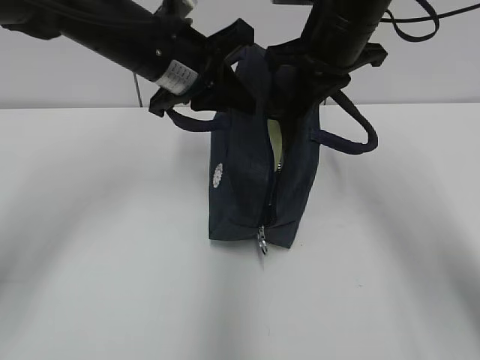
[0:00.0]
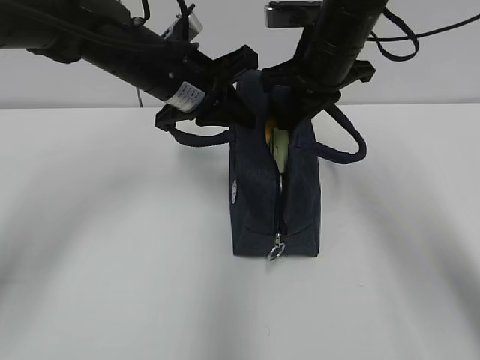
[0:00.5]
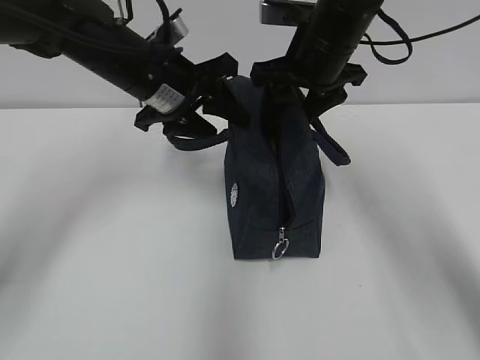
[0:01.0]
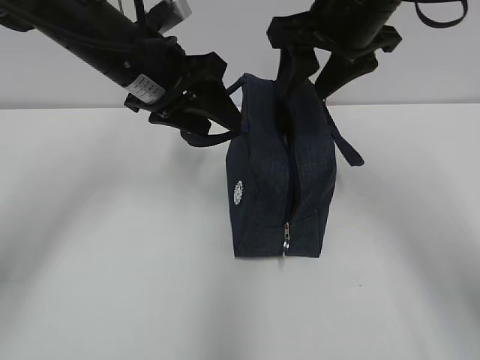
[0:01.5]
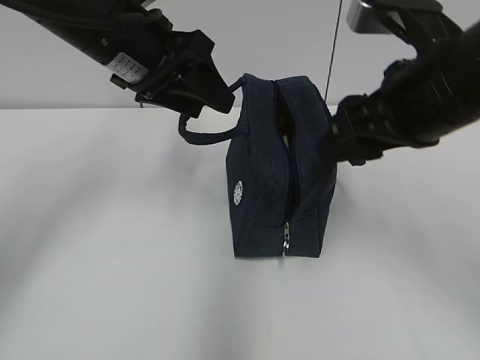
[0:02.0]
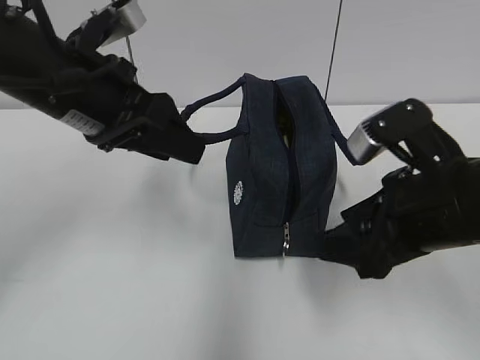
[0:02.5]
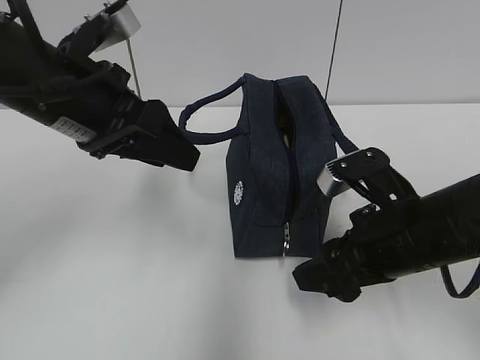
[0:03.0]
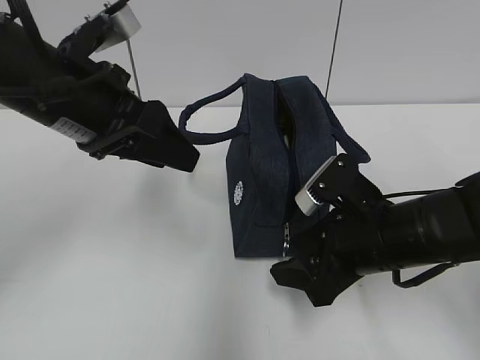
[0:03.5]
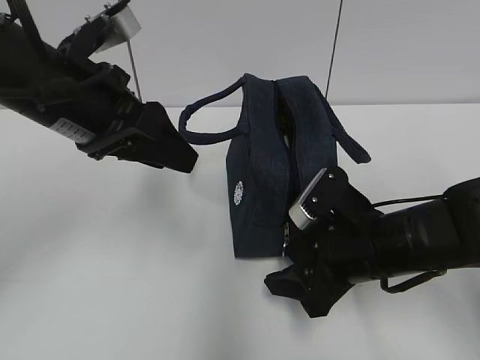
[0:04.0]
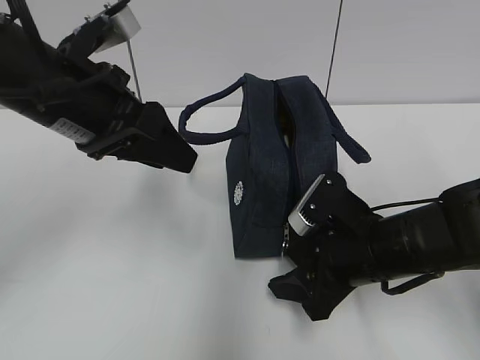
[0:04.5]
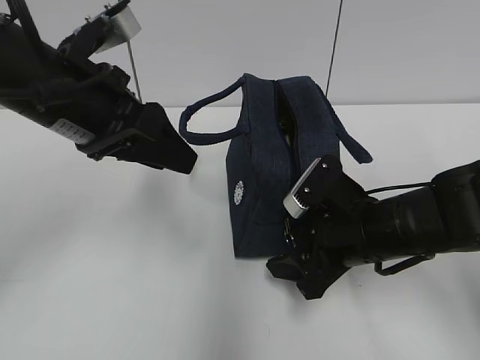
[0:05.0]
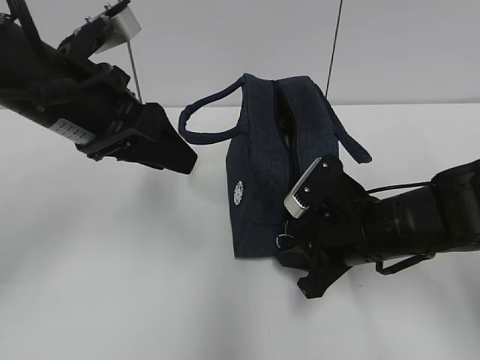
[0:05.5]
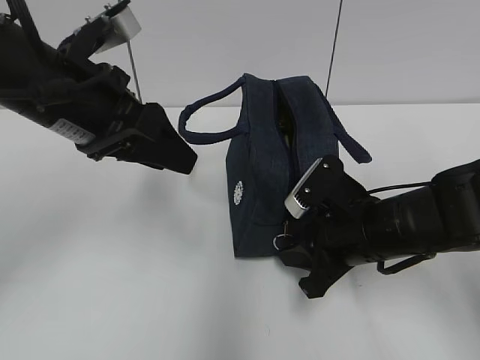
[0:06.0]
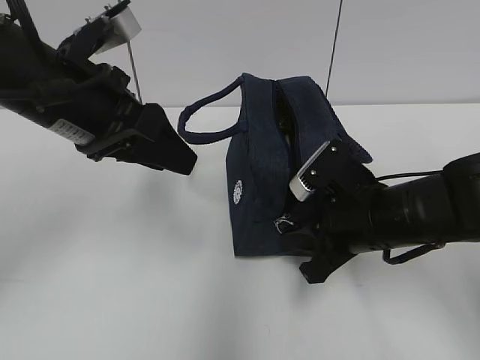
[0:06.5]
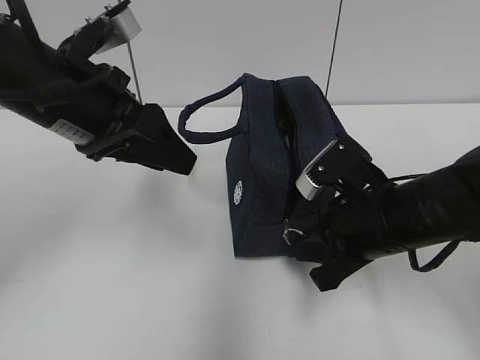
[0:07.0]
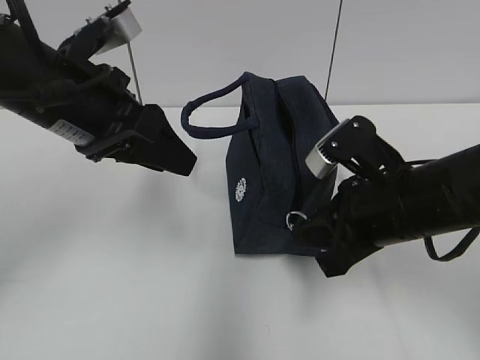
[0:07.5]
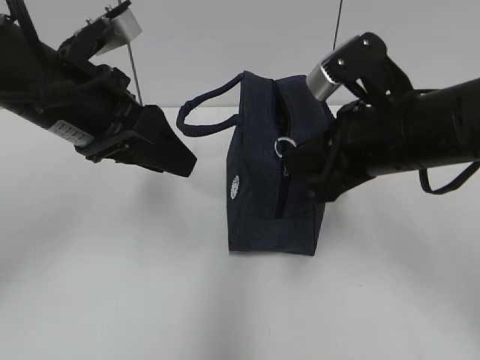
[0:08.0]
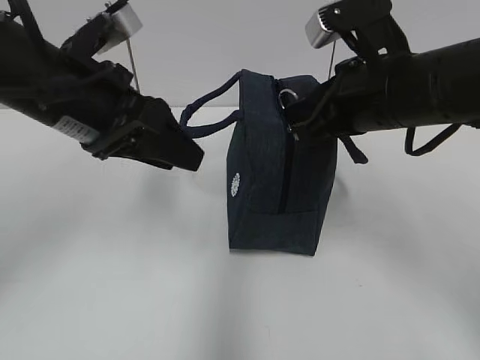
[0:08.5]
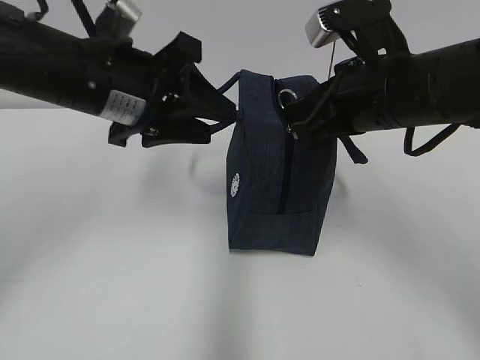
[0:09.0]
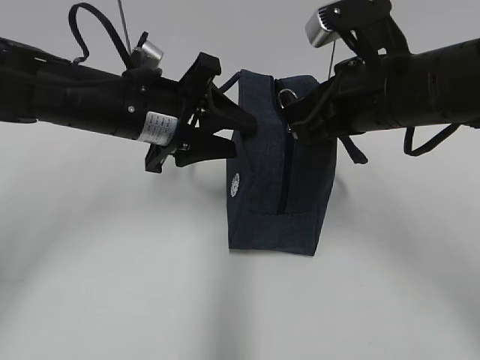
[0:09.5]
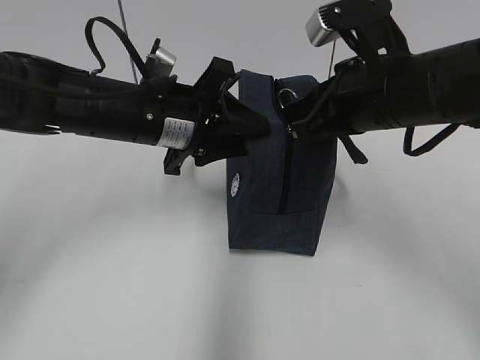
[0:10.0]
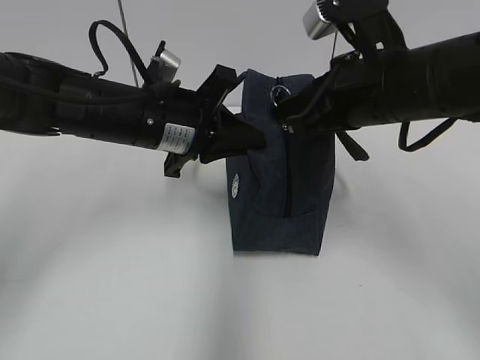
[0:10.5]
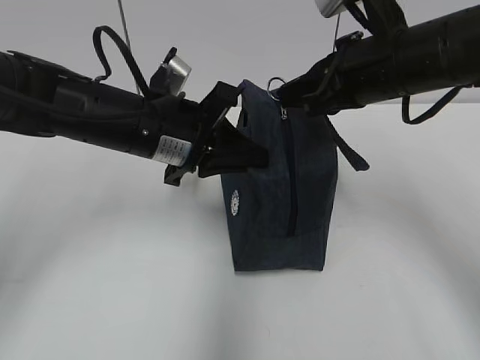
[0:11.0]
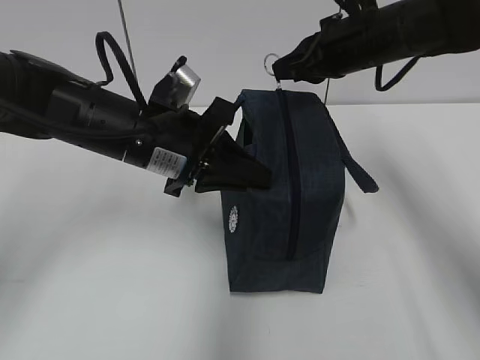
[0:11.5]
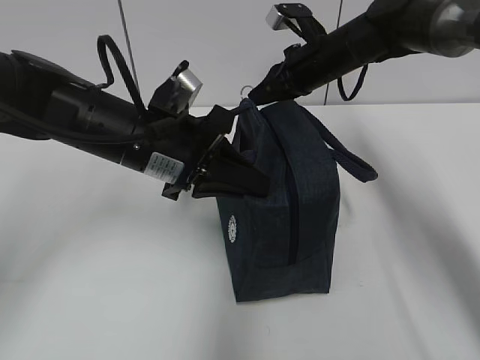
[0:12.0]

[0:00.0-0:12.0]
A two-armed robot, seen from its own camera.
0:00.0 to 0:02.0: The right gripper travels backward by roughly 15 cm, and opens up. Meanwhile the left gripper opens.
0:02.0 to 0:04.0: The right gripper moves downward, some 15 cm, while the left gripper heads backward, covering about 5 cm.
0:04.0 to 0:06.0: The right gripper closes.
0:06.0 to 0:08.0: The right gripper is displaced upward by approximately 10 cm.
0:08.0 to 0:10.0: The left gripper travels downward, to the right and forward by roughly 10 cm.
0:10.0 to 0:12.0: The left gripper closes its fingers. The right gripper heads forward, covering roughly 20 cm.

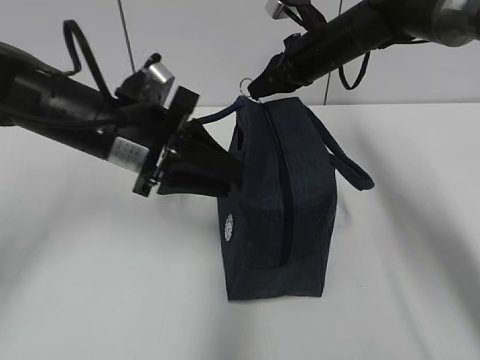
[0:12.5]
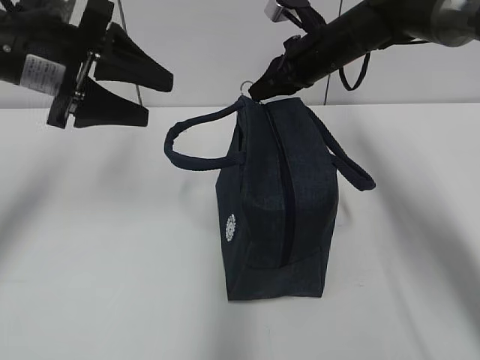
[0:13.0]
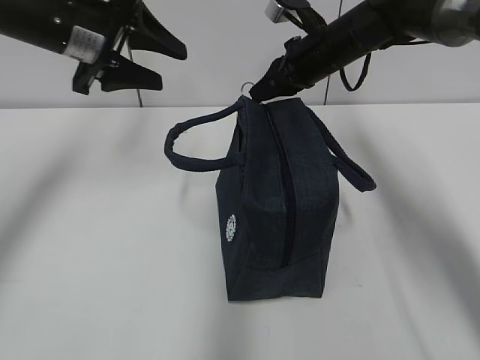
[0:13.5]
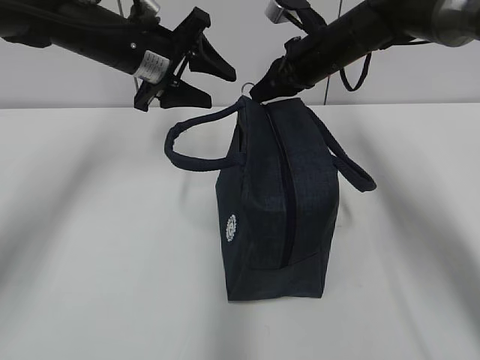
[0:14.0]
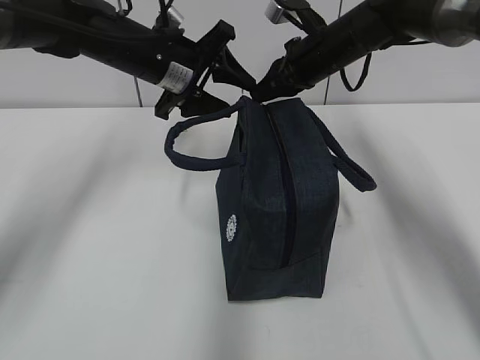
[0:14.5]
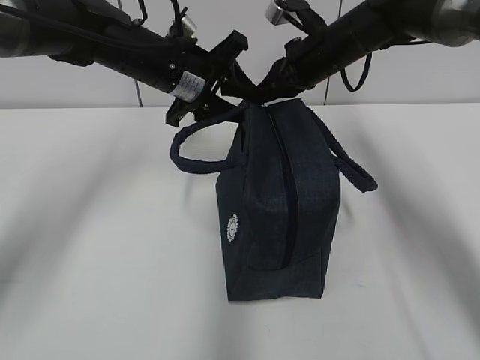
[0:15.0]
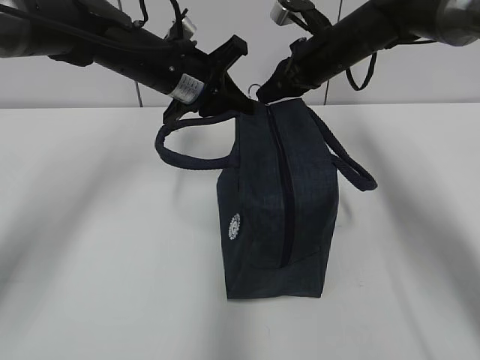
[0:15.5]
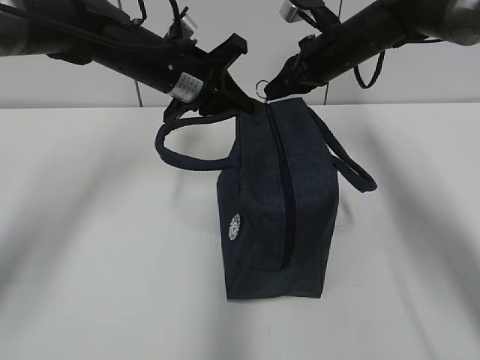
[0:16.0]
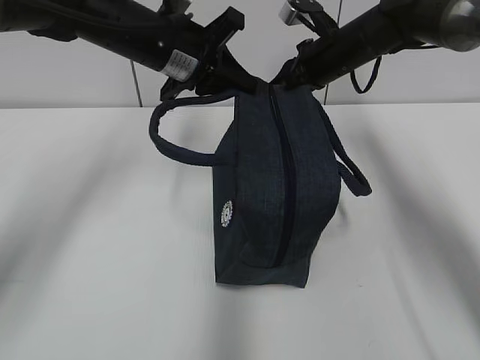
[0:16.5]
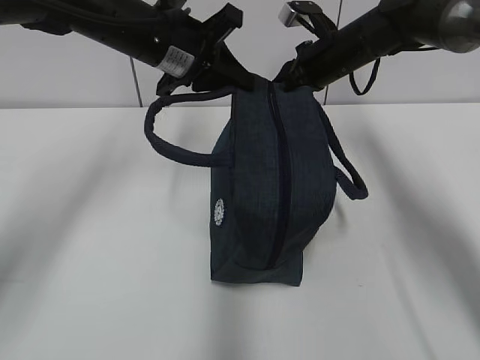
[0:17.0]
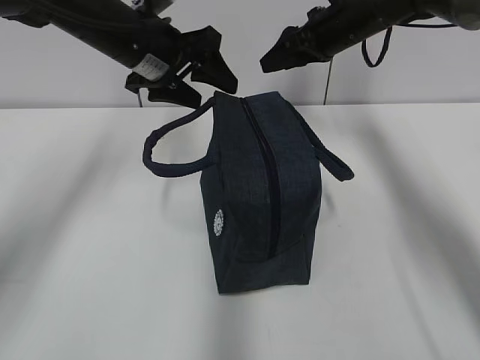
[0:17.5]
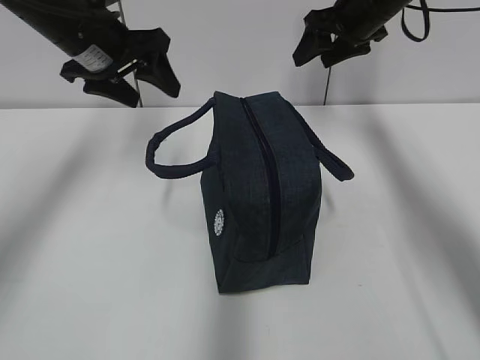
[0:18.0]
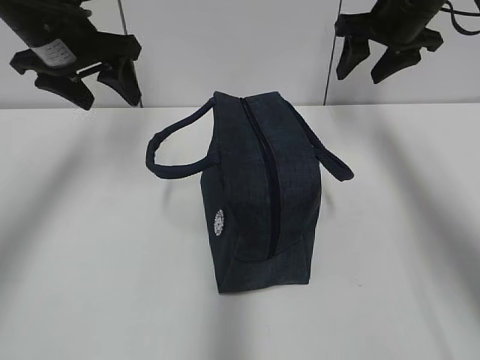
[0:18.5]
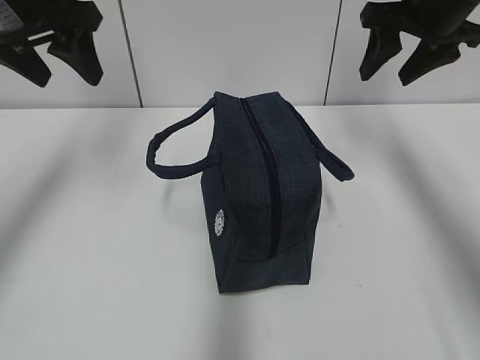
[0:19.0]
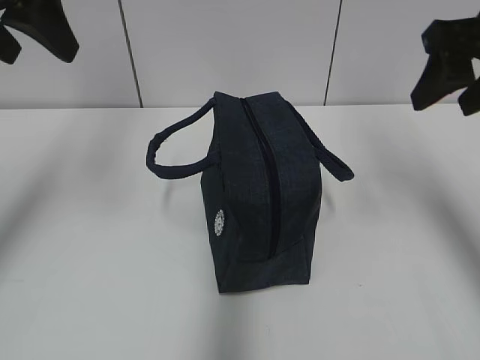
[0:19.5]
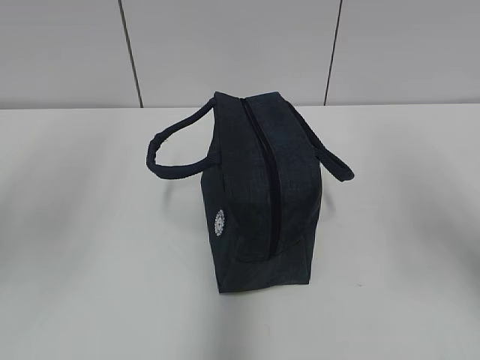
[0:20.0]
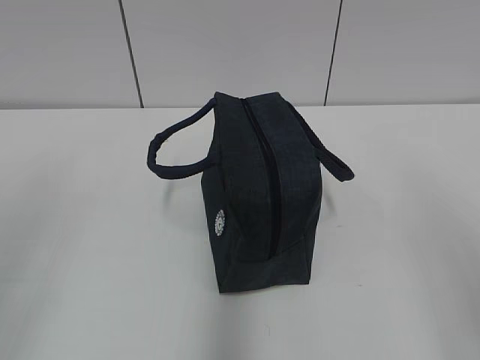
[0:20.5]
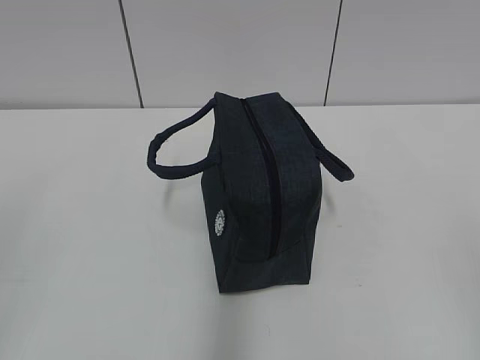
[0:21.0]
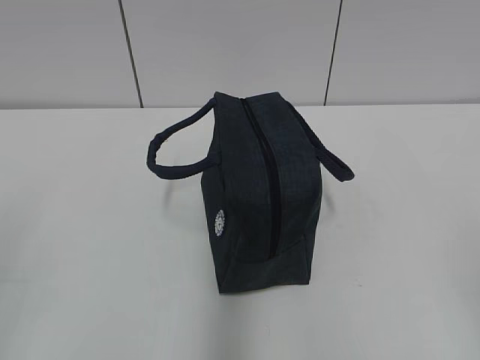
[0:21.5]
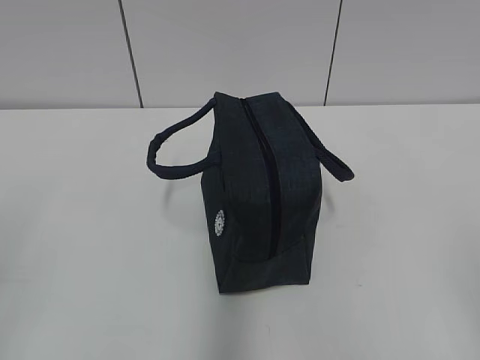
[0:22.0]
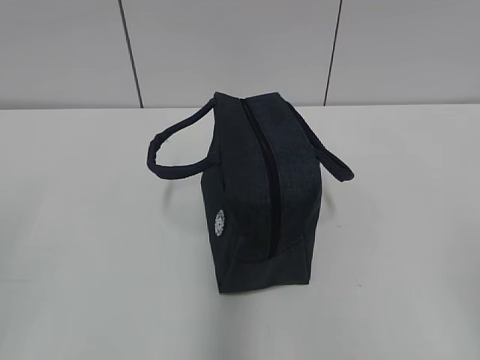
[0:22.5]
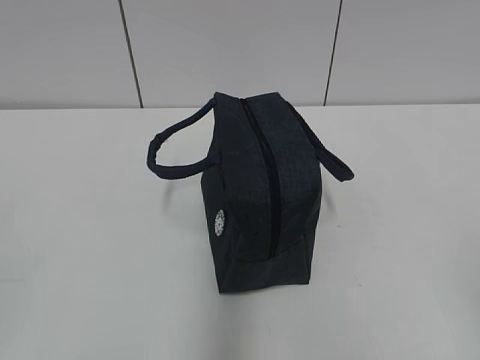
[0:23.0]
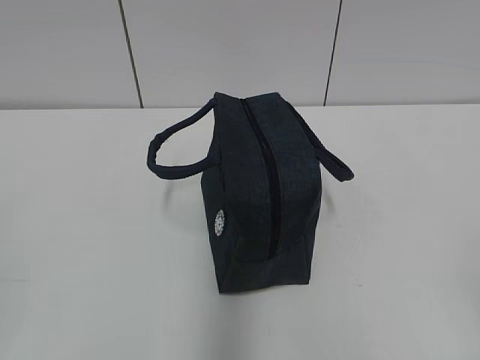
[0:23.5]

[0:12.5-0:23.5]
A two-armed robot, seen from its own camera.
0:12.5 to 0:14.5: The left gripper goes roughly 15 cm forward.
0:14.5 to 0:16.0: The left gripper closes its fingers.
0:16.0 to 0:18.0: The left gripper heads to the left, covering roughly 10 cm, and opens its fingers. Meanwhile the right gripper shifts roughly 5 cm upward, and opens.
0:18.0 to 0:20.0: The left gripper goes roughly 25 cm backward and upward; the right gripper travels backward by some 35 cm.
0:20.0 to 0:21.5: The right gripper shifts roughly 15 cm backward.

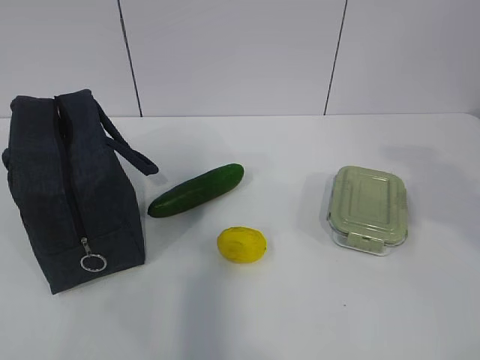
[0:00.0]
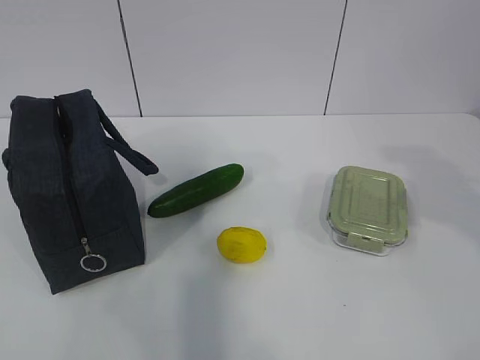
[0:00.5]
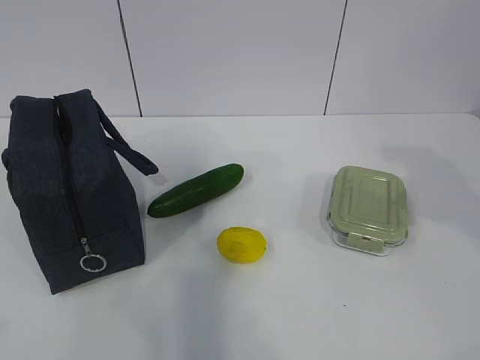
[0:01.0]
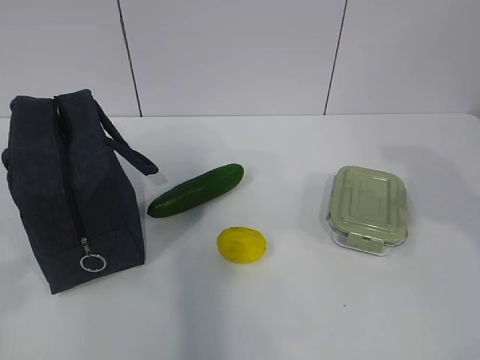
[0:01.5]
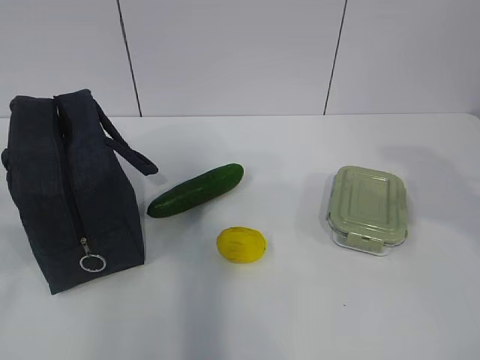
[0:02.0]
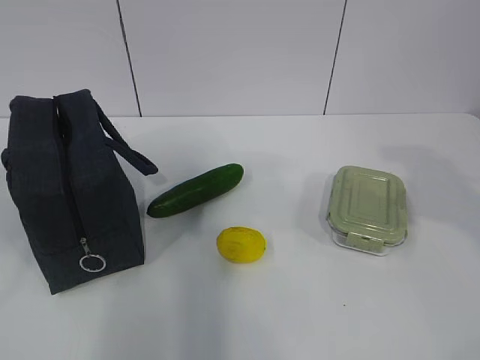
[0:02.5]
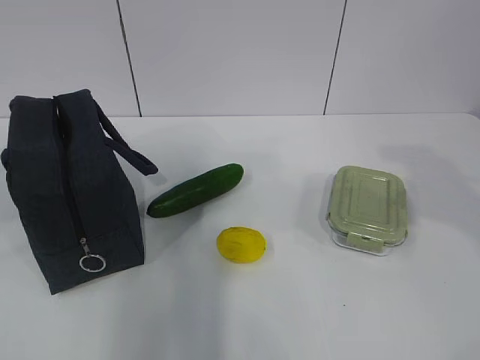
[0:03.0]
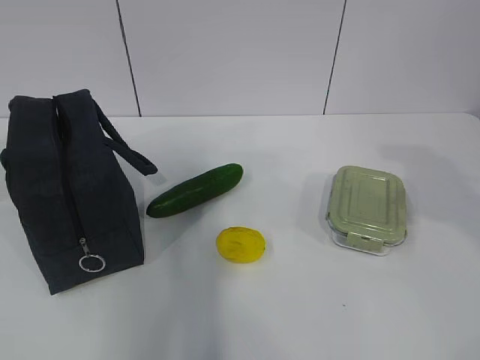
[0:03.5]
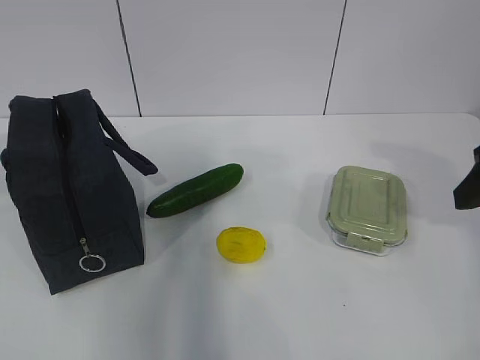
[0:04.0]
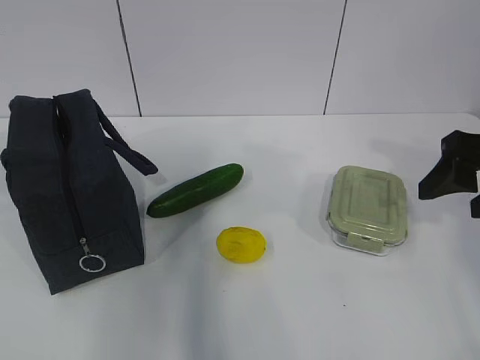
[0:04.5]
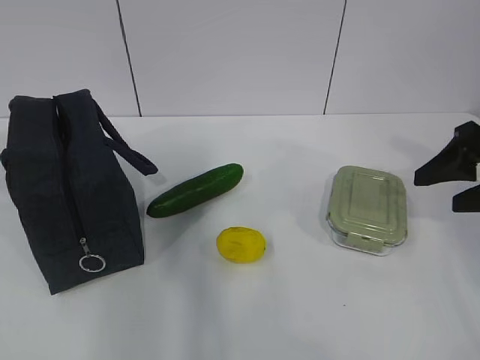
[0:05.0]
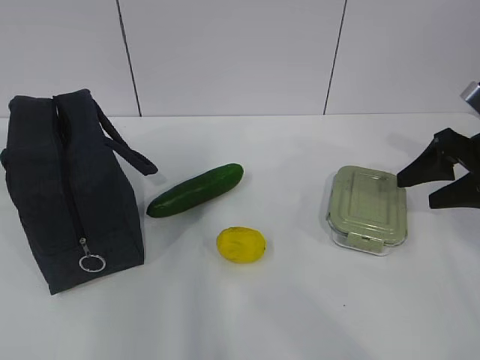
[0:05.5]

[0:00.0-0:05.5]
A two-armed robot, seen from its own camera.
0:03.5 to 0:05.5: The right gripper is displaced forward and downward by about 15 cm.
